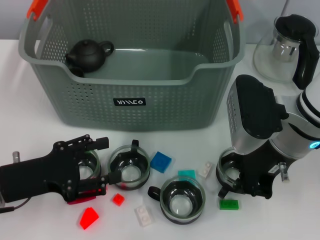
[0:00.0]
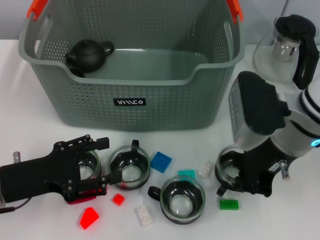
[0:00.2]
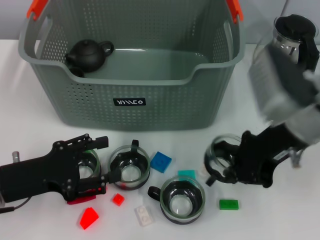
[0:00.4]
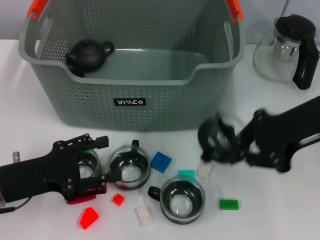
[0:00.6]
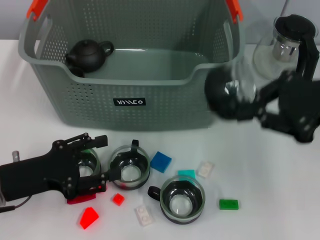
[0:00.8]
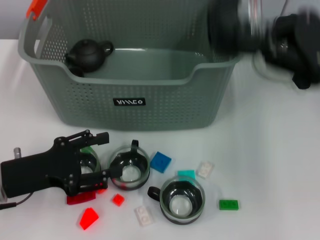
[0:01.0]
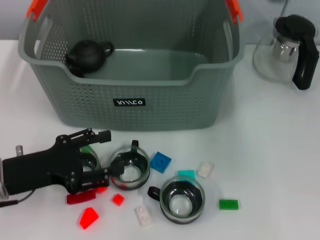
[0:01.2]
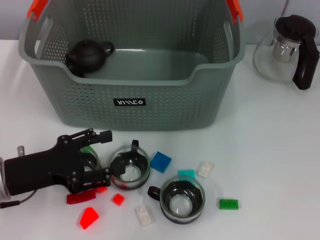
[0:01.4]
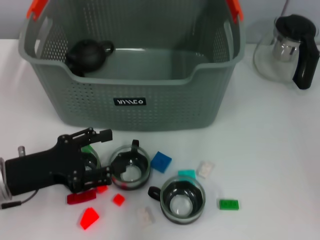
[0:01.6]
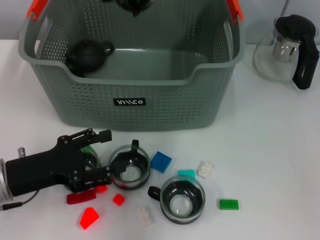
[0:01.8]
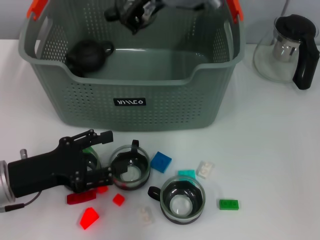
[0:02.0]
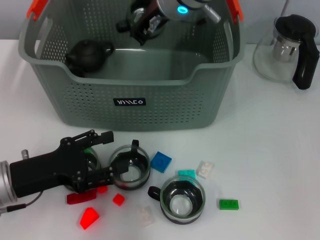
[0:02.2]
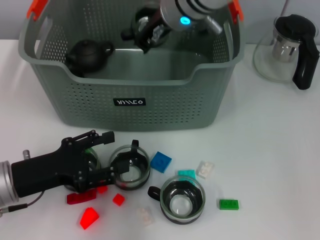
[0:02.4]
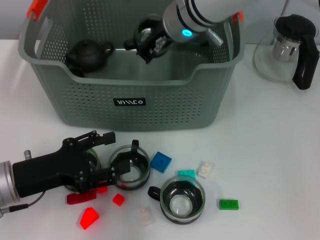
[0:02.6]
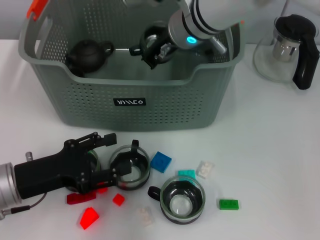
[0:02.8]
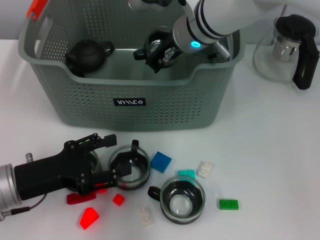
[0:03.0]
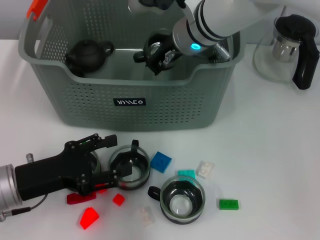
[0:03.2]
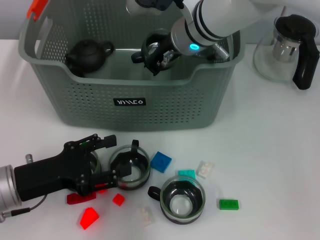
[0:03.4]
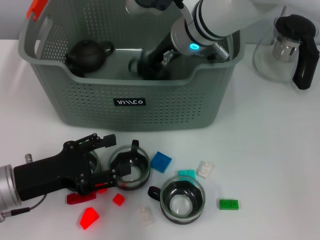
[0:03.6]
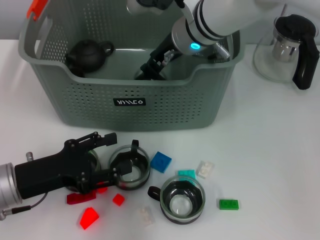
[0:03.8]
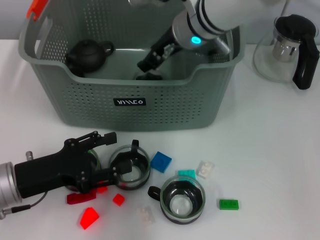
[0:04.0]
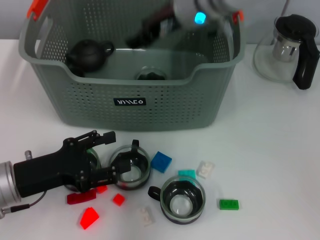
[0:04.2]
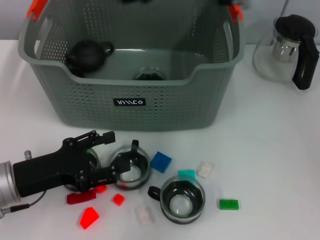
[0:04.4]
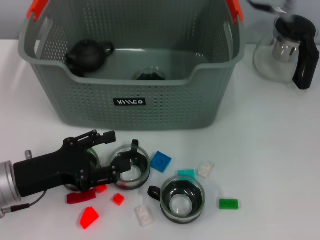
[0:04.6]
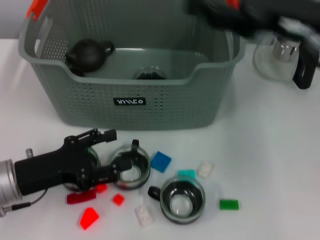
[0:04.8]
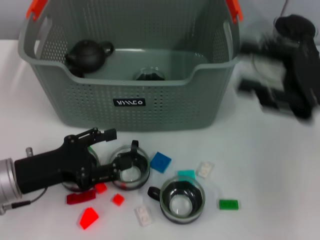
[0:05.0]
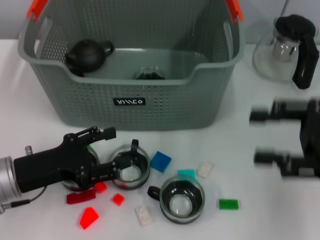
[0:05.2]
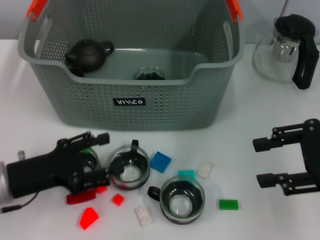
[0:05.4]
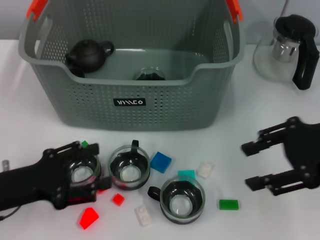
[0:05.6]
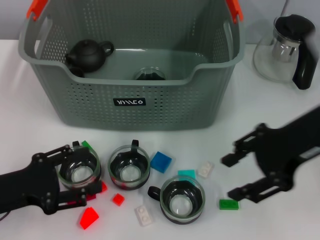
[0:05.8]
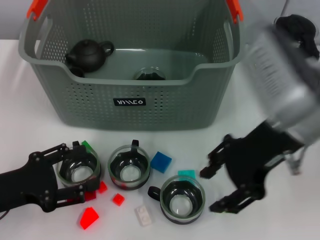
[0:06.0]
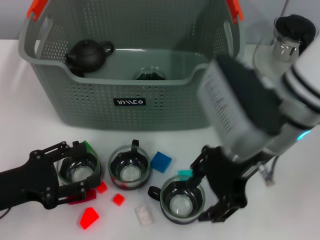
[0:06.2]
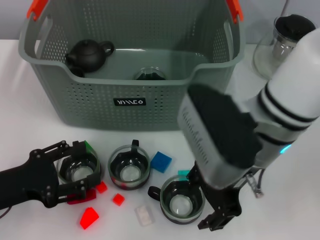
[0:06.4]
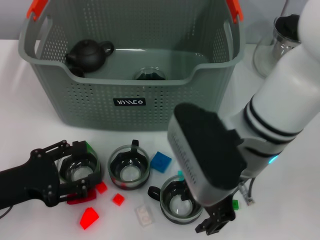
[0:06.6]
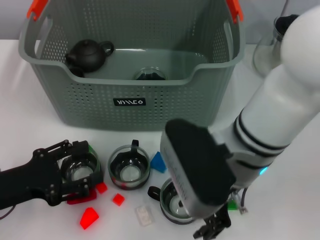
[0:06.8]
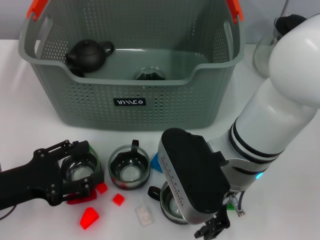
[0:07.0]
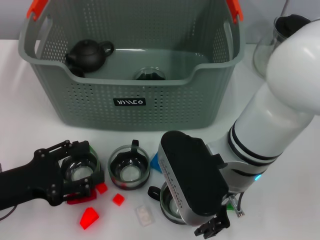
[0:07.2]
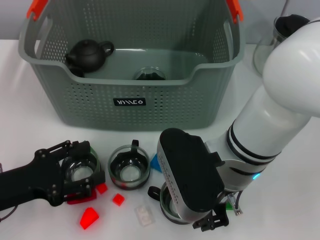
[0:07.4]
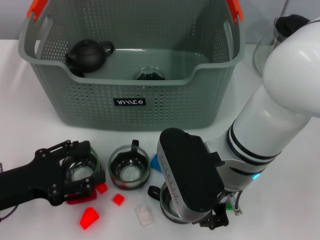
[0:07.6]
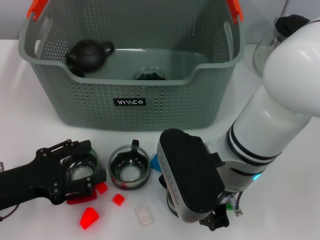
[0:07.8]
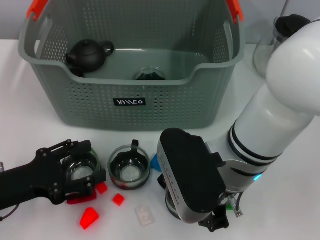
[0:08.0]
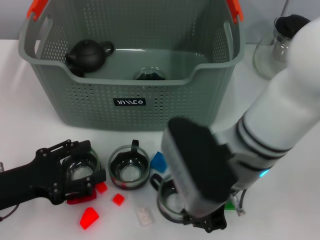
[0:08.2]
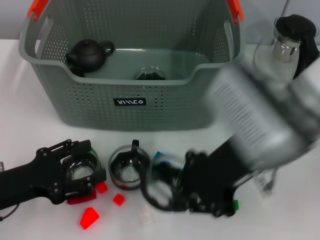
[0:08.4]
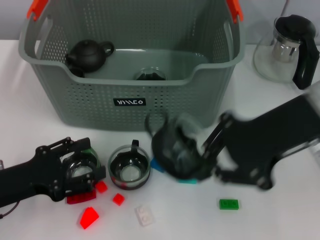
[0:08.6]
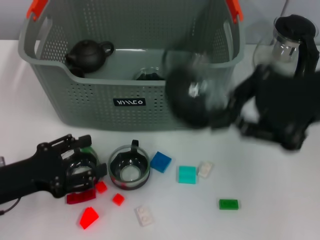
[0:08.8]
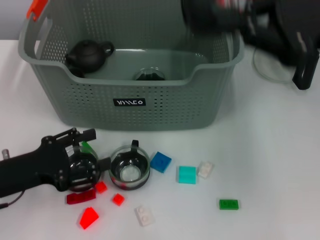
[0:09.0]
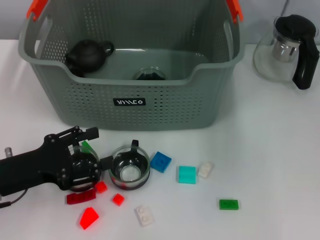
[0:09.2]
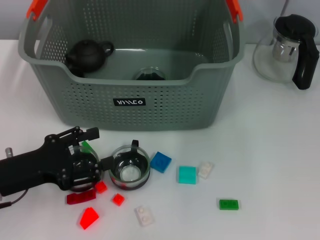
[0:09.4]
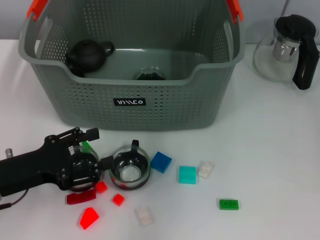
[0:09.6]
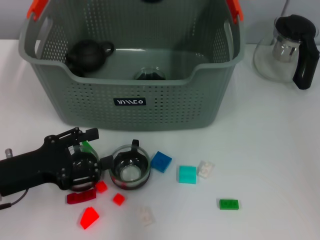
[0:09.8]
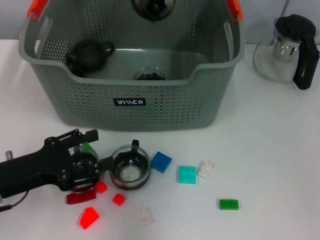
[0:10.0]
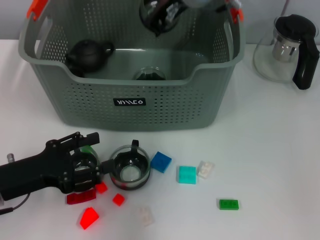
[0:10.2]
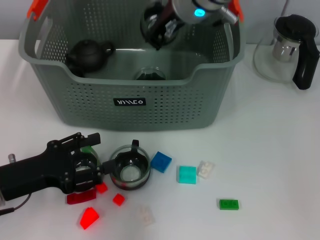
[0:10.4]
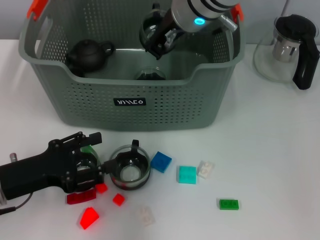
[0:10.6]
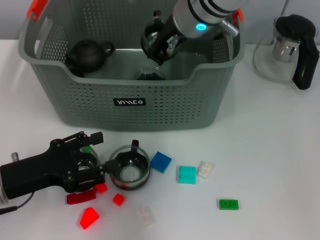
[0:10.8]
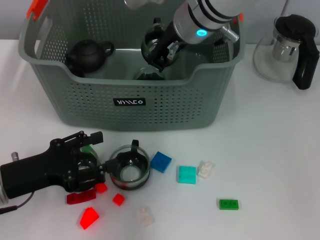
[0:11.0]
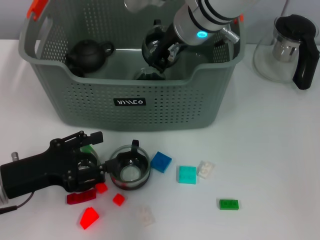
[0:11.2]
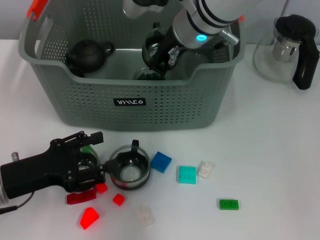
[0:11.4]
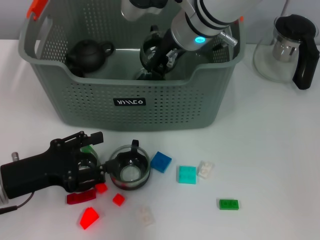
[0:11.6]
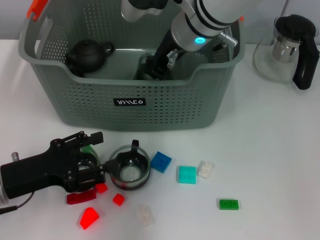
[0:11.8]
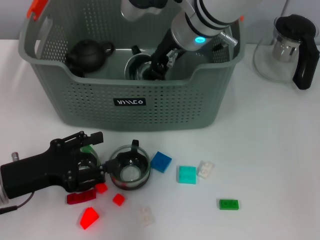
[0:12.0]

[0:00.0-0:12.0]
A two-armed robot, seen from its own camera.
Task of the whole recording: pick up the teacup on the table and place it into the storage bin, pick up the block on the table and place it into the storage bin.
Step, 0.0 to 4.0 s: Place the cup in the storage box with right gripper.
Step, 4.2 to 7.6 s: Grasp the cup with right gripper.
0.0 to 1.6 s: The right gripper goes about 20 cm upward, to the left and forward.
1.6 to 3.0 s: The right gripper shifts roughly 15 cm downward.
3.0 to 4.4 s: The right gripper is displaced upward by approximately 10 cm, and opens up.
4.4 to 6.0 s: The right gripper goes approximately 15 cm backward, to the right and downward.
6.0 to 7.6 s: The right gripper shifts roughly 10 cm to the left and downward.
7.6 to 9.0 s: The right gripper travels to the right and upward by roughly 20 cm, and closes up.
9.0 to 10.4 s: The right gripper moves to the left and forward, some 25 cm.
10.4 to 12.0 s: The grippers move only a little.

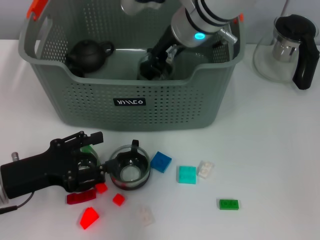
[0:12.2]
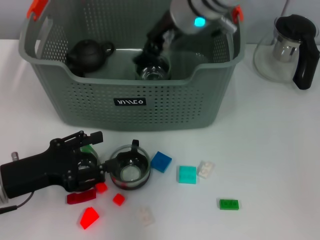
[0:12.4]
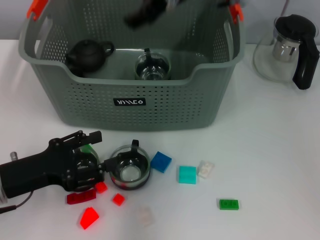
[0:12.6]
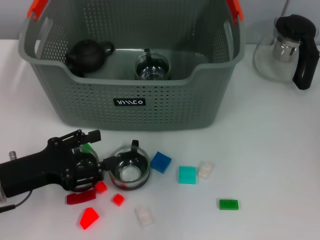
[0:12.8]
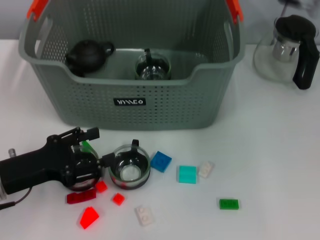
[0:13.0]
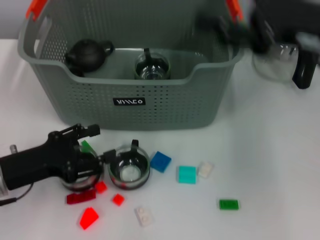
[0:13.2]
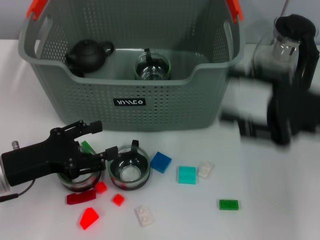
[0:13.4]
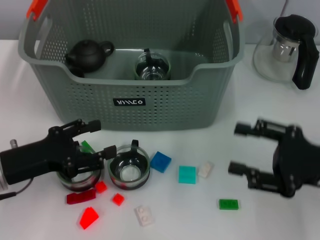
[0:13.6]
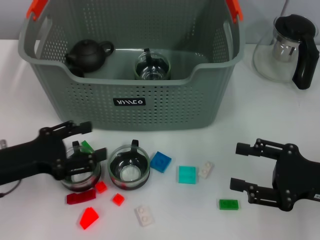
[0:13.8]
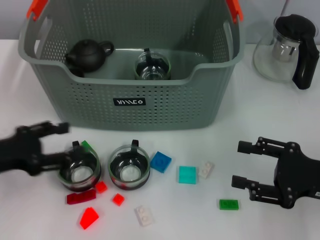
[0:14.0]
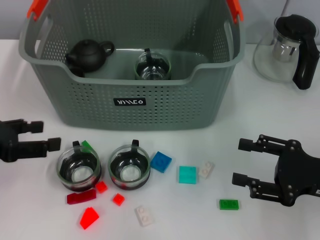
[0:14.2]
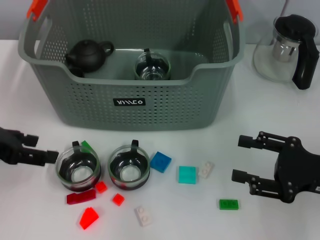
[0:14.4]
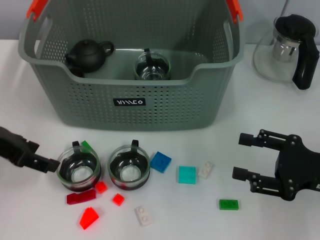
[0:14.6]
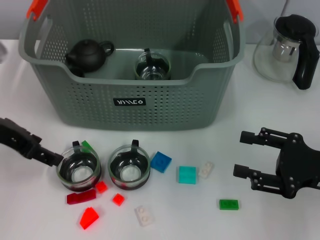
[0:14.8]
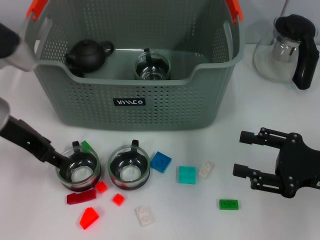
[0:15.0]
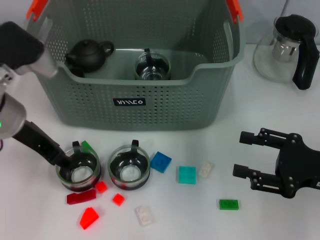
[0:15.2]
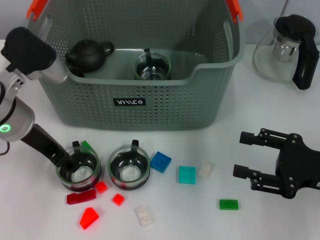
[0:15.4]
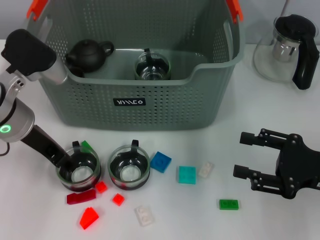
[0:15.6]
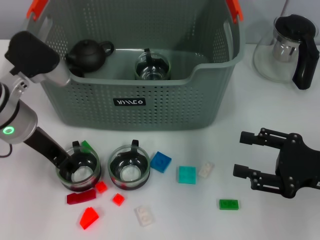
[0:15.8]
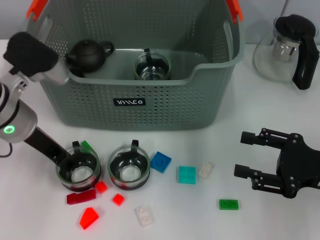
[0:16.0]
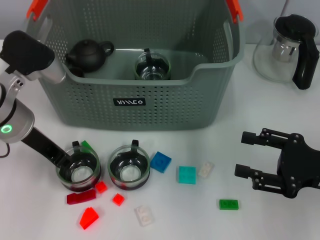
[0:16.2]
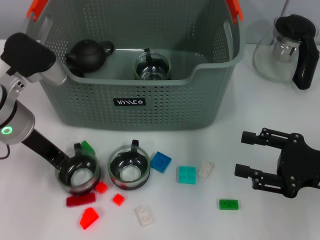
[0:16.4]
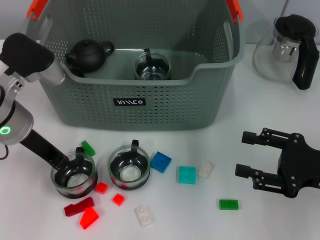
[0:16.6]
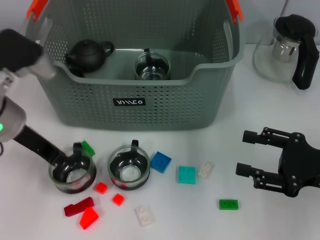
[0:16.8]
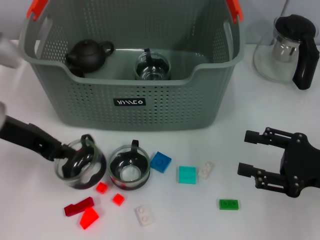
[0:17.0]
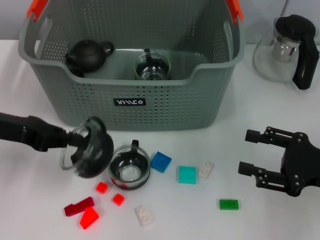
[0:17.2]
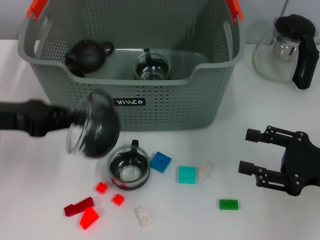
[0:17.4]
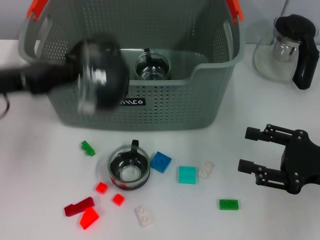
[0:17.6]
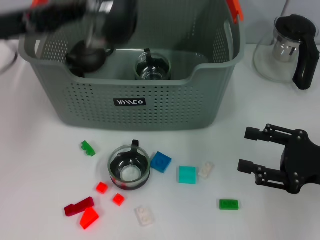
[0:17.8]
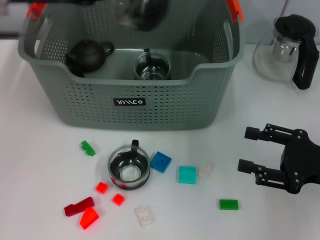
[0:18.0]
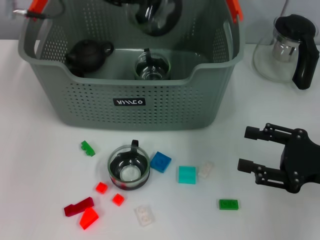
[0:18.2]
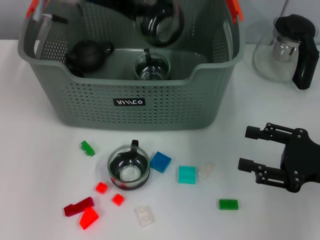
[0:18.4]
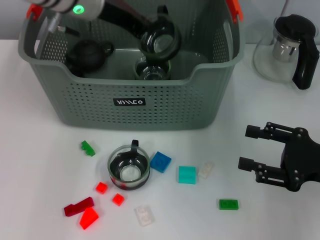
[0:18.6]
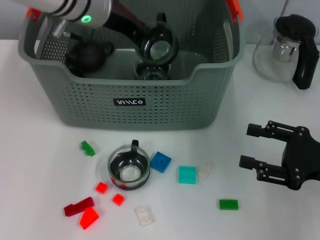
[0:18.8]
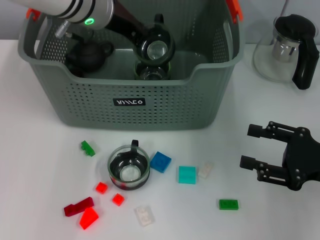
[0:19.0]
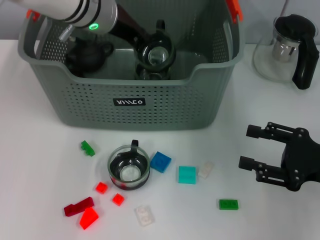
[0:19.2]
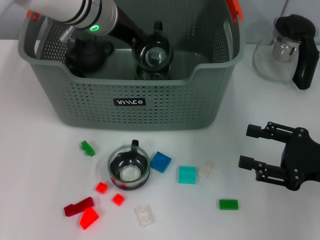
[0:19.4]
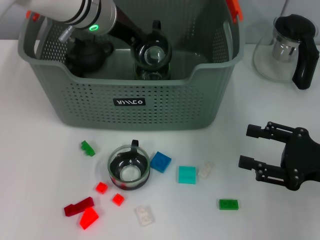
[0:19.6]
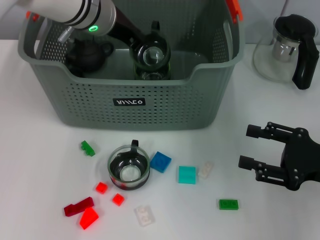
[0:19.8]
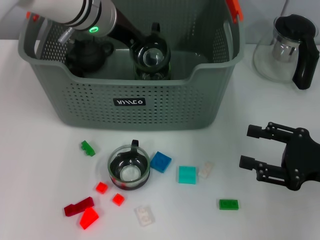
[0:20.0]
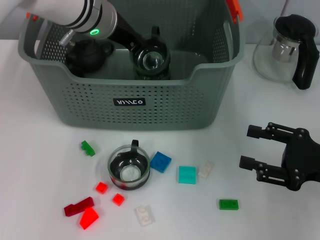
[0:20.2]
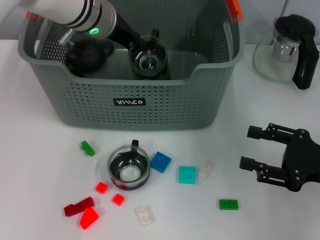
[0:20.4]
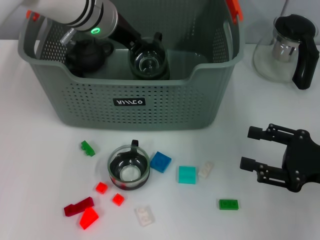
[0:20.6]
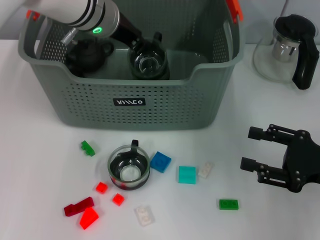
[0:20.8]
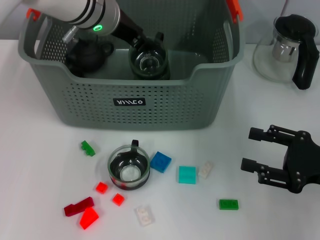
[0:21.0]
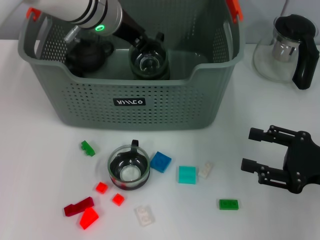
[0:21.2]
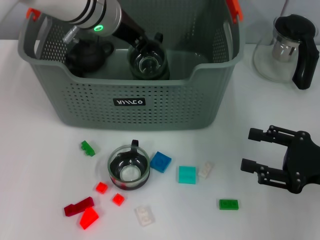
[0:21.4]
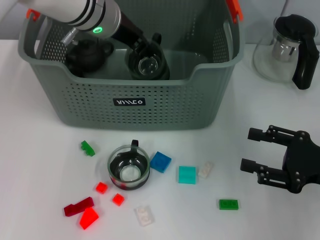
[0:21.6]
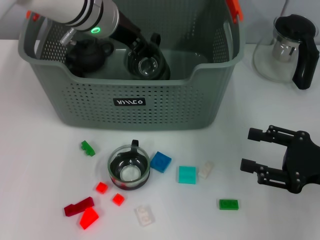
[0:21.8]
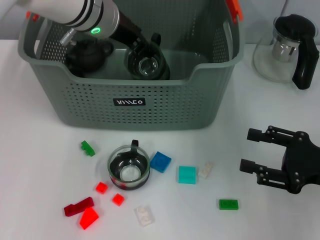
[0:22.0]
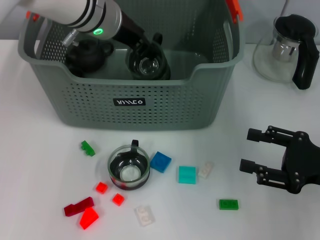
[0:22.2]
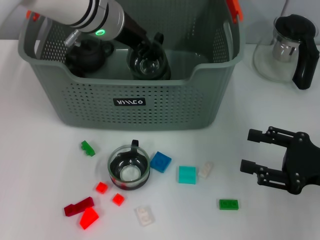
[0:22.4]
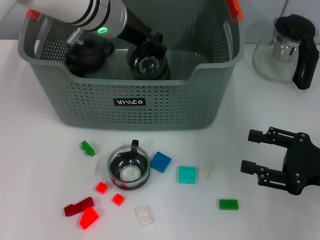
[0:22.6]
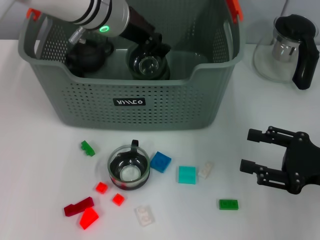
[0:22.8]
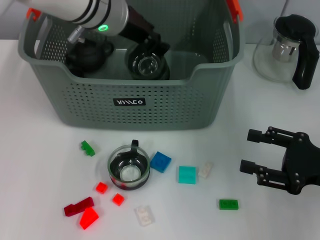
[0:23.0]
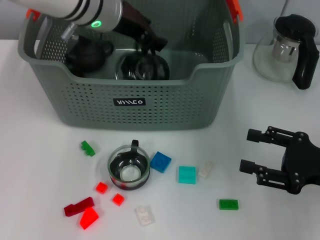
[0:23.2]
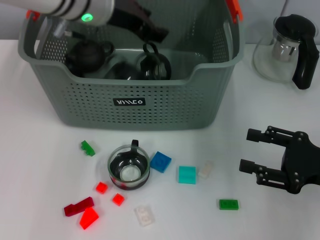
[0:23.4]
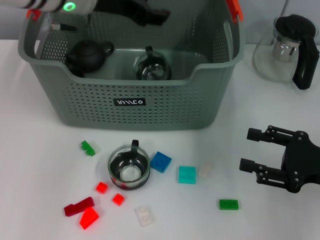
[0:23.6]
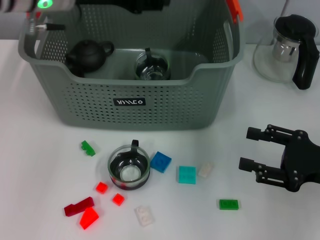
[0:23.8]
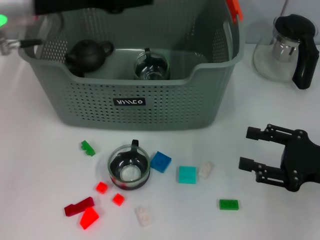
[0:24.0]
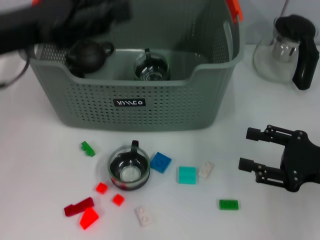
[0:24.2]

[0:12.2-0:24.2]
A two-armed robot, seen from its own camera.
Task of the whole recording: pick up the teacup on the table and place it into the storage bin, pick up the block on the table and place it into the storage bin.
Step, 12.8 to 16.2 s: Grasp the cup with left gripper.
Step, 16.6 to 23.6 s: Place the cup in the storage box with left gripper.
12.2 to 13.8 s: The right gripper travels to the right, backward and downward by approximately 35 cm, and opens up.
13.8 to 15.2 s: The left gripper is displaced upward, forward and to the right by about 15 cm.
15.2 to 16.6 s: The left gripper closes its fingers.
16.6 to 18.2 s: The left gripper shifts roughly 15 cm upward and forward.
18.2 to 19.8 s: The left gripper goes roughly 10 cm to the right and downward.
19.8 to 21.2 s: The left gripper opens.
21.2 to 22.6 s: Both grippers stay put.
22.6 to 24.2 s: The left gripper travels to the left and backward by about 20 cm.
